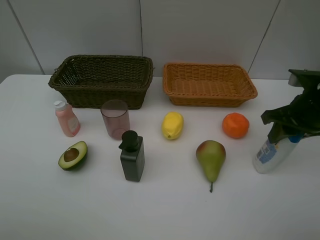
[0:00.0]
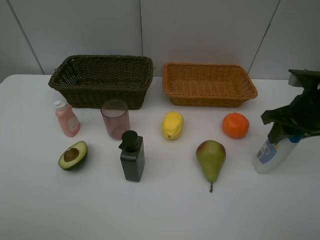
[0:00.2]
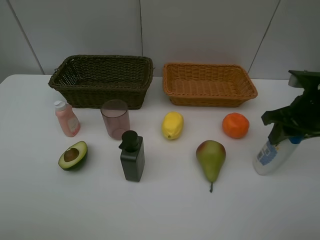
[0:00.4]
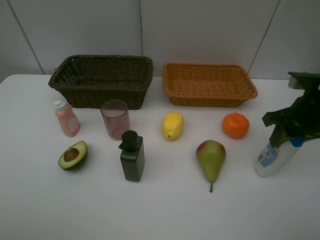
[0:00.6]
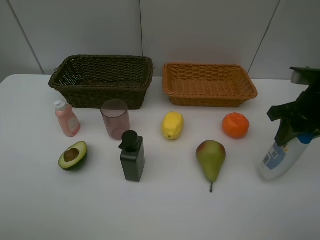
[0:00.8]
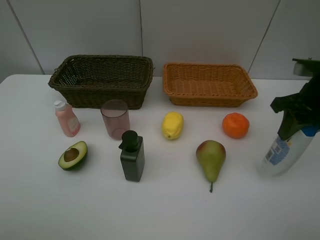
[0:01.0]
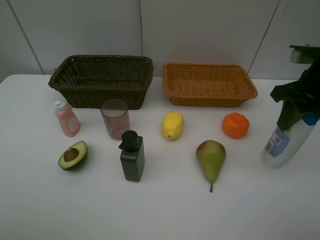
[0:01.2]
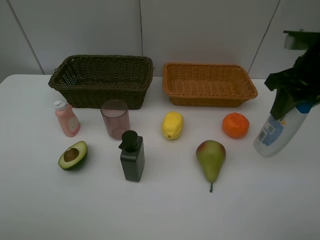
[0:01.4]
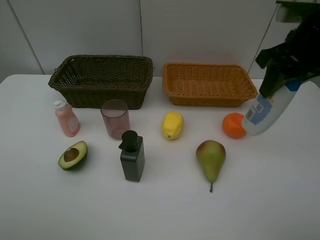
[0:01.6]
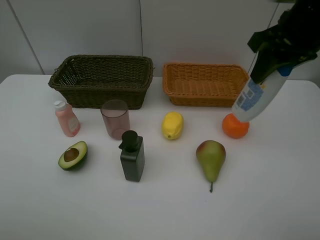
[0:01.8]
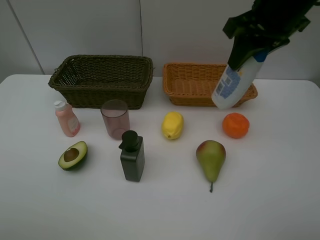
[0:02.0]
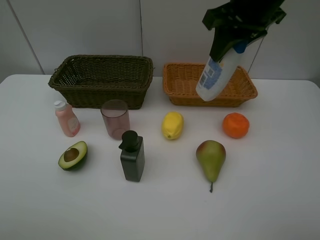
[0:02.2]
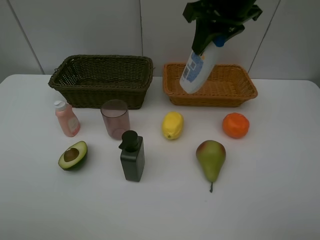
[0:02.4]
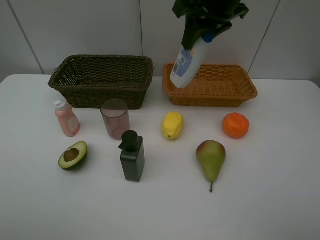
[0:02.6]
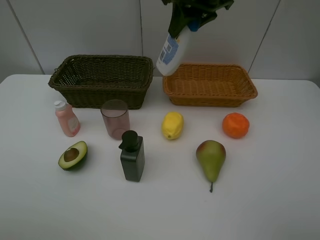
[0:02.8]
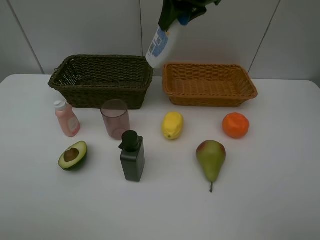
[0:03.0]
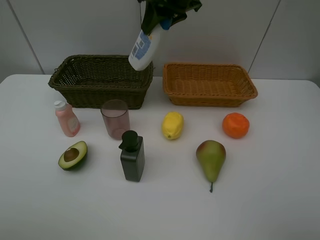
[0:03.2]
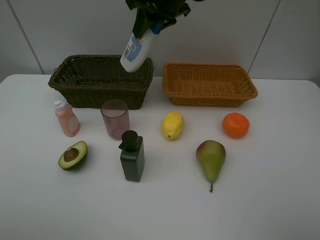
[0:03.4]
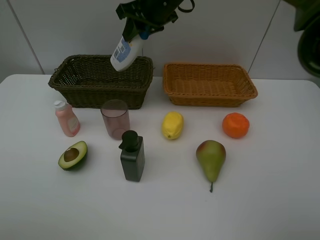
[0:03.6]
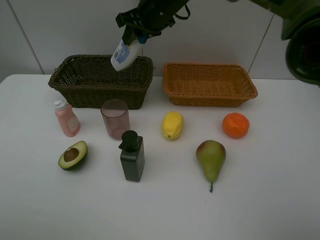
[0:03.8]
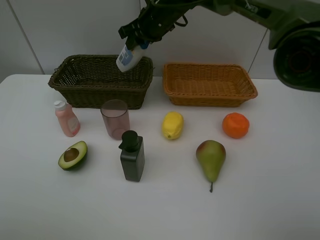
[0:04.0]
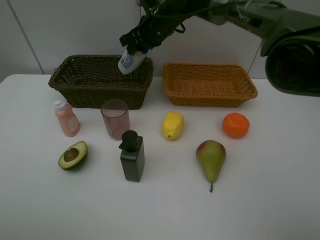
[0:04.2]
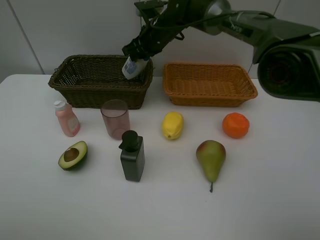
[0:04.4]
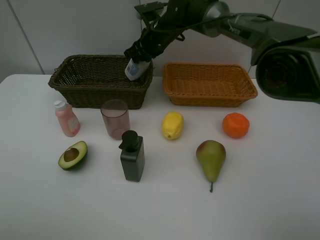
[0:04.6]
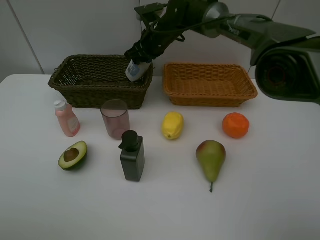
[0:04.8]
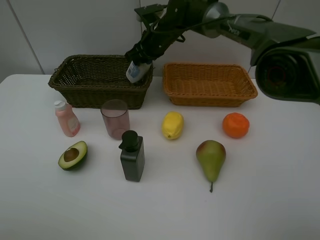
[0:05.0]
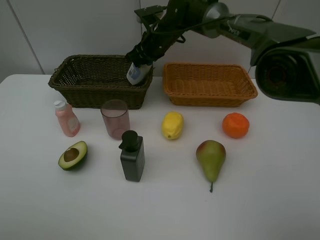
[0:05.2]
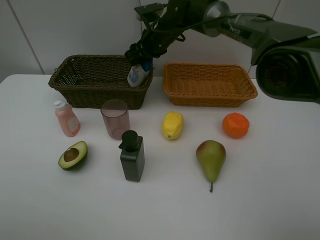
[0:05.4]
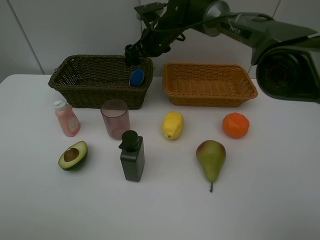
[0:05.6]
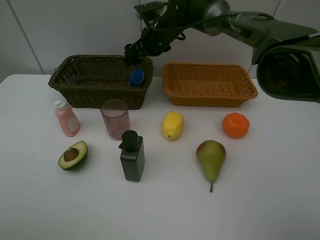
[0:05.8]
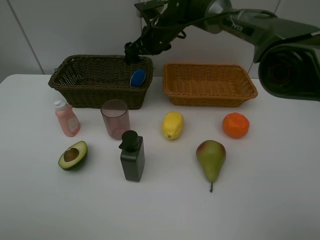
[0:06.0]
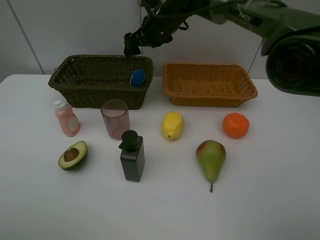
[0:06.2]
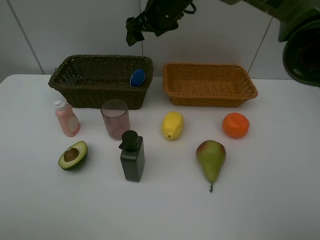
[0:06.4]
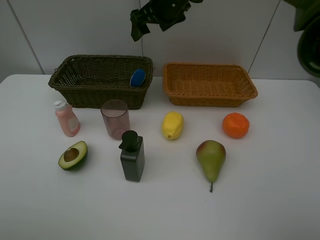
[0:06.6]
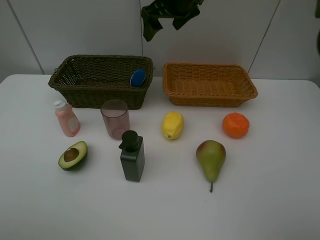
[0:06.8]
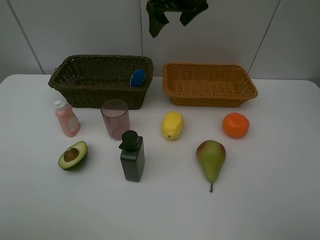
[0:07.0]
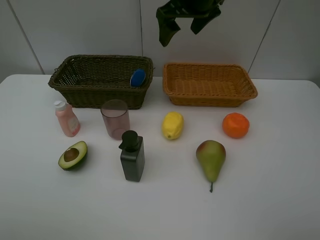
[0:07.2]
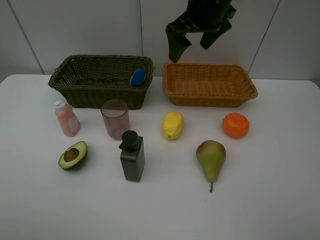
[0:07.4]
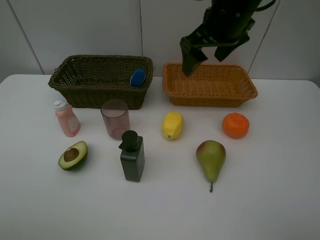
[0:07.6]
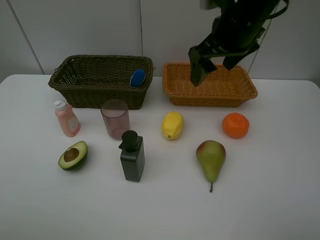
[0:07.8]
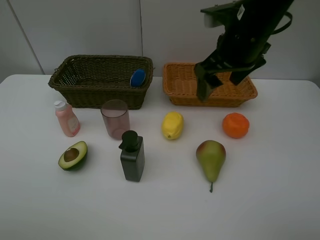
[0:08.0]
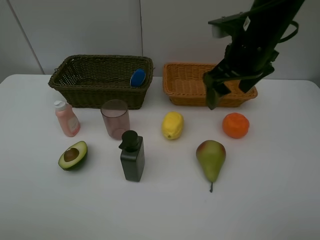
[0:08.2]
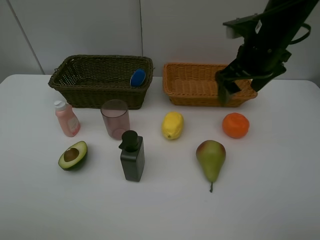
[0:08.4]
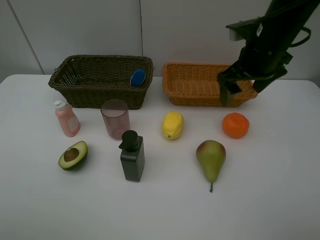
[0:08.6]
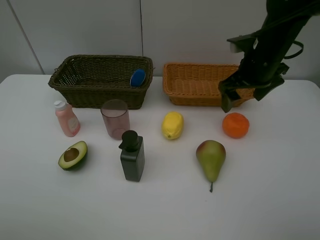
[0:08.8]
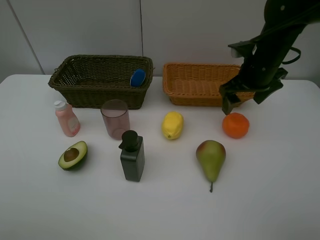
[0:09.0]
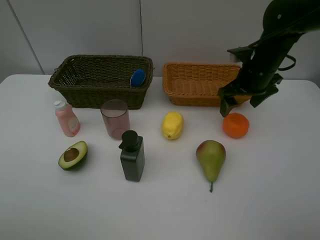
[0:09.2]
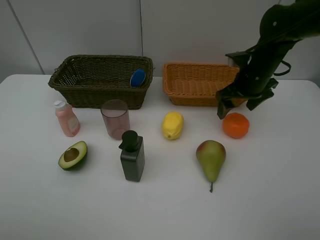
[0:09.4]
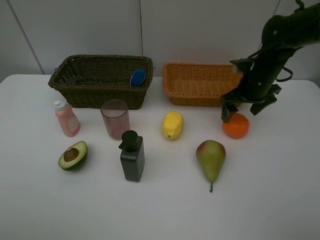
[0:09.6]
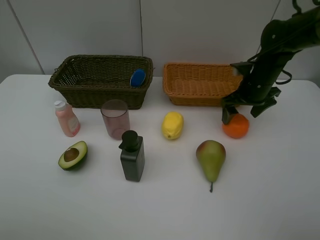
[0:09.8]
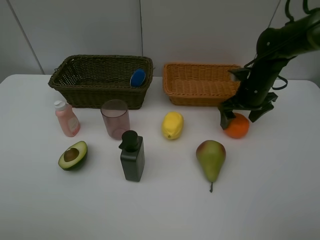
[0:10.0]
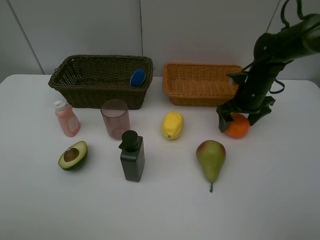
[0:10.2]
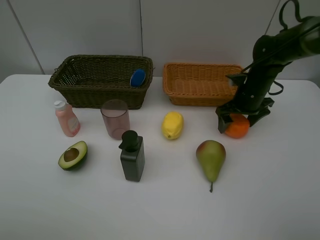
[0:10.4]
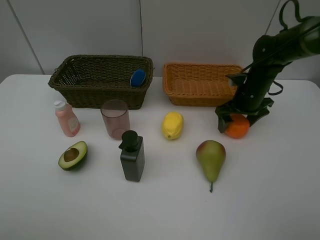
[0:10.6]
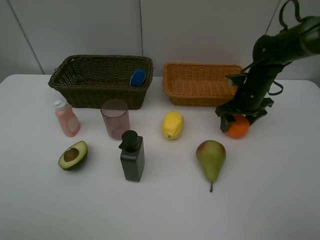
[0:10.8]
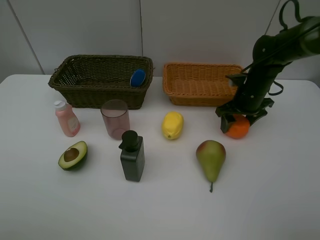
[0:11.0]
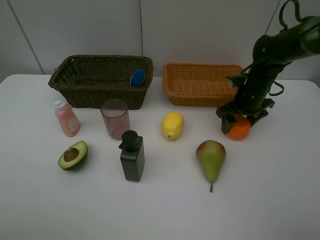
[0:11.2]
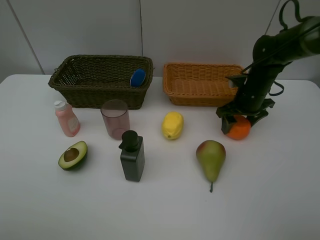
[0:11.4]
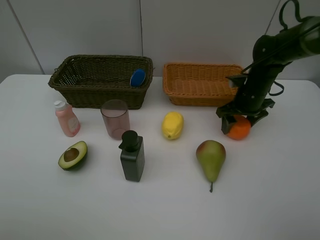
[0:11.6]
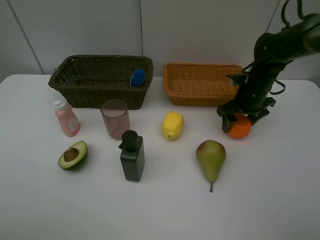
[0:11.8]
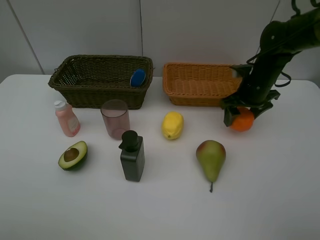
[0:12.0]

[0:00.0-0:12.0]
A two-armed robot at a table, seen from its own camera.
Task of the whole recording: Place multiple objects separately in different baskets.
Step, 0:01.0 to 0:05.8: Place the shampoo in the dark basket with right gripper.
Step, 0:06.0 to 0:11.8: Pick up the orange with right gripper.
0:00.0 to 0:01.6: The right gripper goes approximately 15 cm upward and to the left.
0:01.6 to 0:03.0: The right gripper is displaced to the left and forward by roughly 20 cm.
0:03.0 to 0:04.4: The right gripper goes some 20 cm downward, forward and to the left.
0:04.4 to 0:06.0: The right gripper opens its fingers.
0:06.0 to 0:07.6: The right gripper goes roughly 20 cm backward, to the right and upward.
0:07.6 to 0:09.0: The right gripper shifts about 15 cm downward and to the right.
0:09.0 to 0:10.4: The right gripper is displaced downward by approximately 10 cm.
0:10.4 to 0:12.0: There are only small adjustments of the grippers.

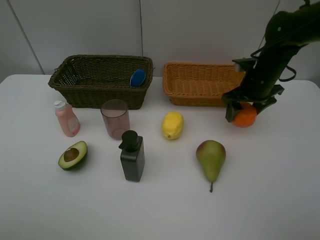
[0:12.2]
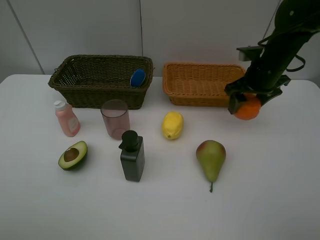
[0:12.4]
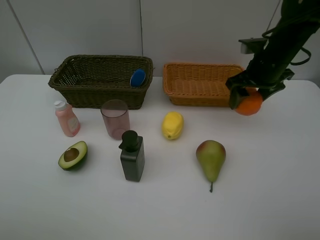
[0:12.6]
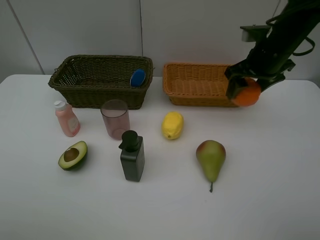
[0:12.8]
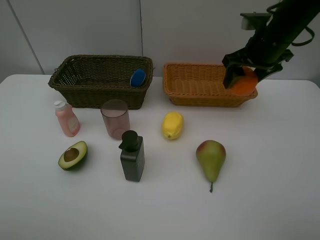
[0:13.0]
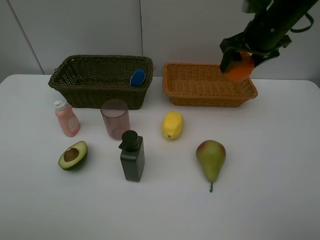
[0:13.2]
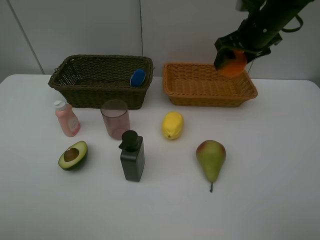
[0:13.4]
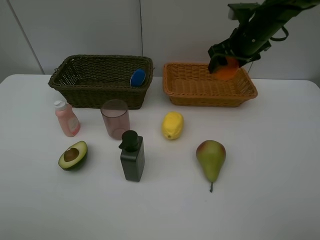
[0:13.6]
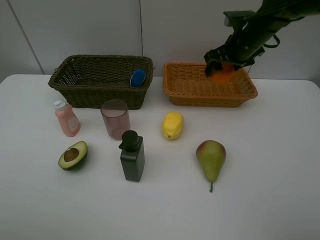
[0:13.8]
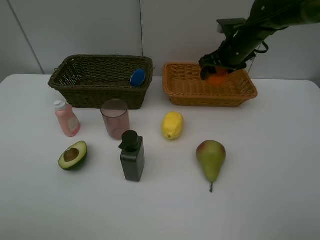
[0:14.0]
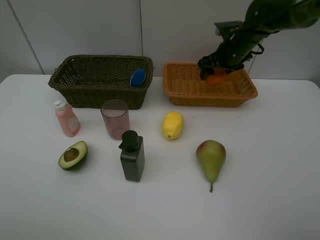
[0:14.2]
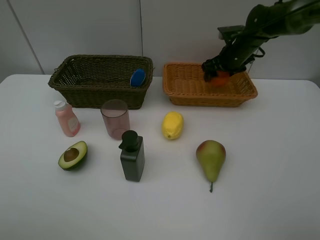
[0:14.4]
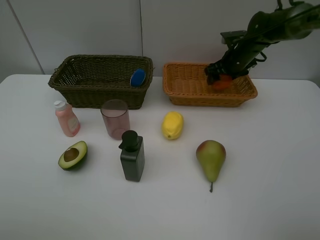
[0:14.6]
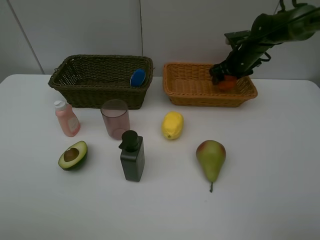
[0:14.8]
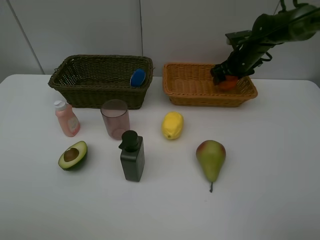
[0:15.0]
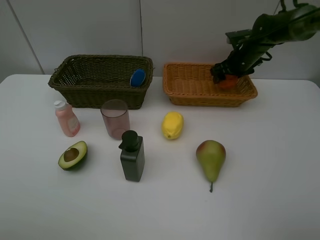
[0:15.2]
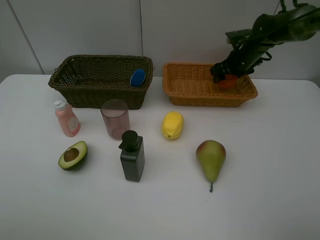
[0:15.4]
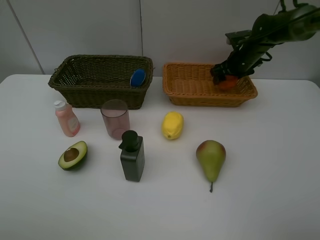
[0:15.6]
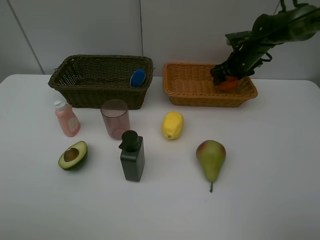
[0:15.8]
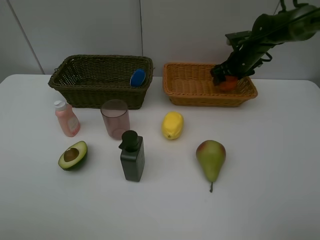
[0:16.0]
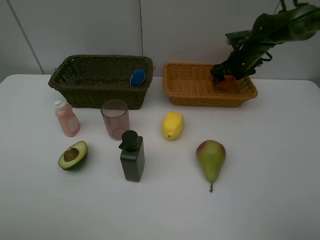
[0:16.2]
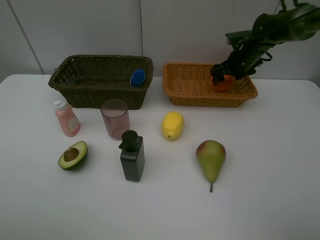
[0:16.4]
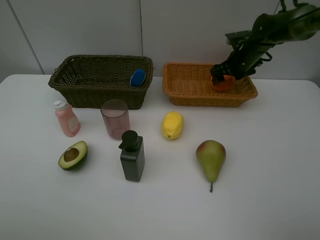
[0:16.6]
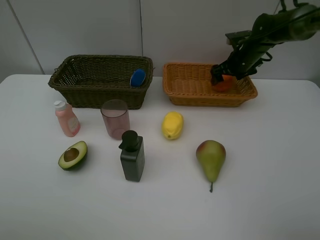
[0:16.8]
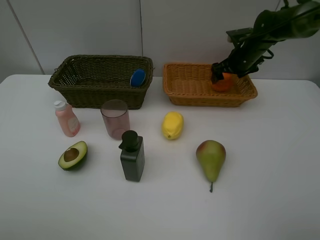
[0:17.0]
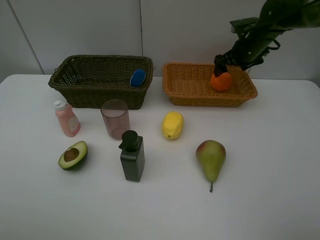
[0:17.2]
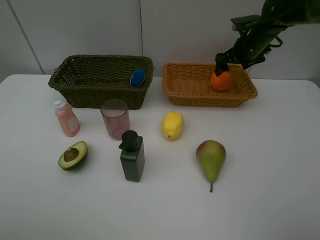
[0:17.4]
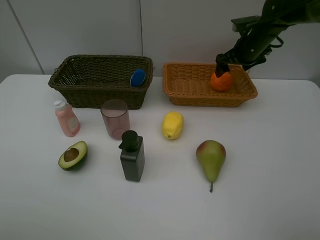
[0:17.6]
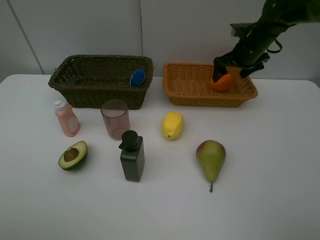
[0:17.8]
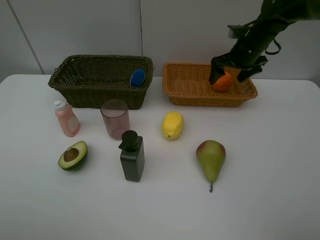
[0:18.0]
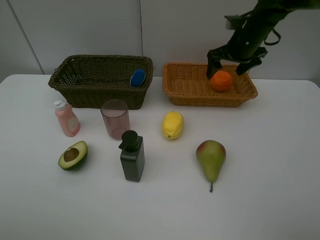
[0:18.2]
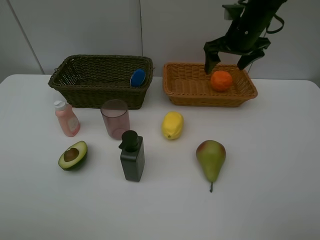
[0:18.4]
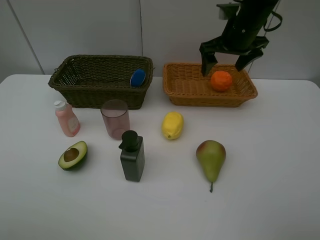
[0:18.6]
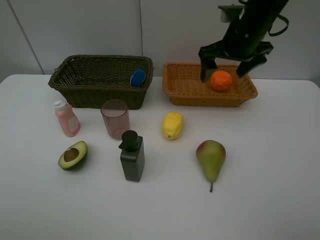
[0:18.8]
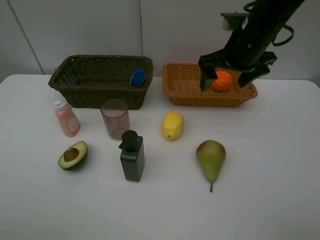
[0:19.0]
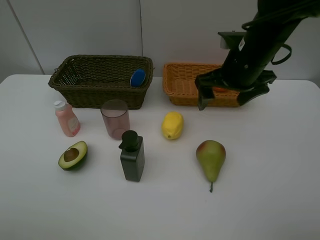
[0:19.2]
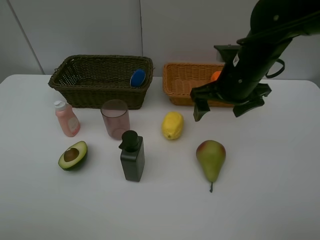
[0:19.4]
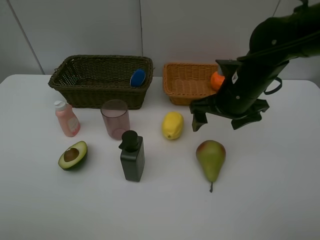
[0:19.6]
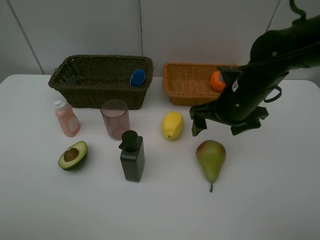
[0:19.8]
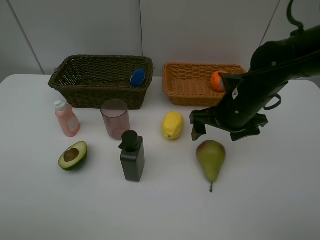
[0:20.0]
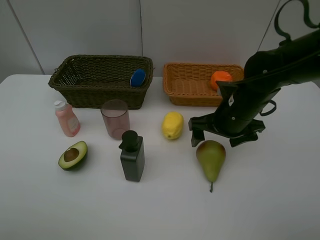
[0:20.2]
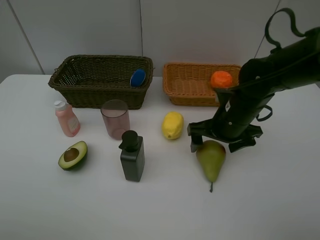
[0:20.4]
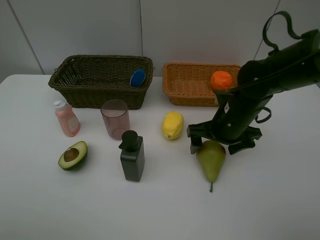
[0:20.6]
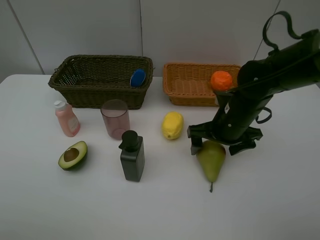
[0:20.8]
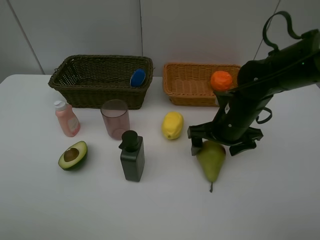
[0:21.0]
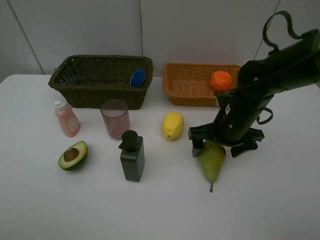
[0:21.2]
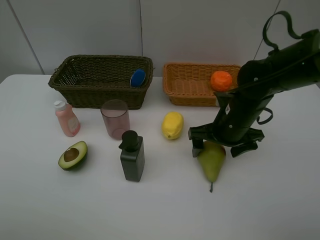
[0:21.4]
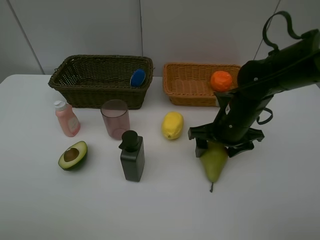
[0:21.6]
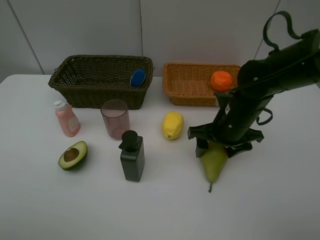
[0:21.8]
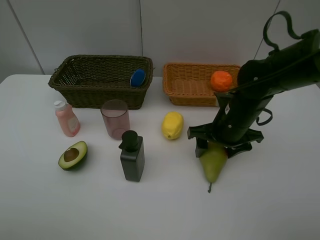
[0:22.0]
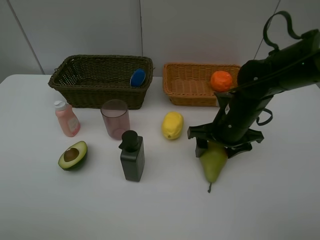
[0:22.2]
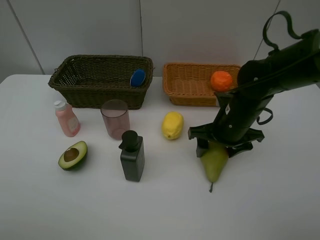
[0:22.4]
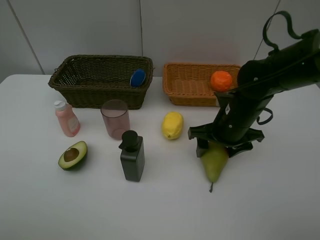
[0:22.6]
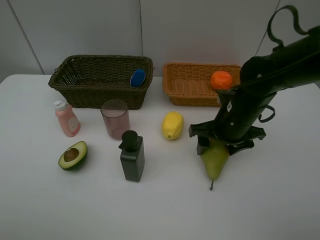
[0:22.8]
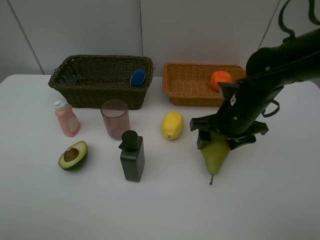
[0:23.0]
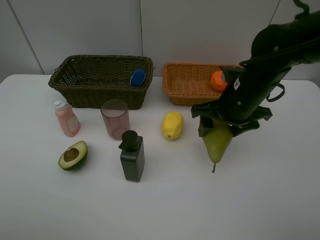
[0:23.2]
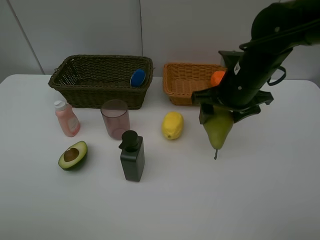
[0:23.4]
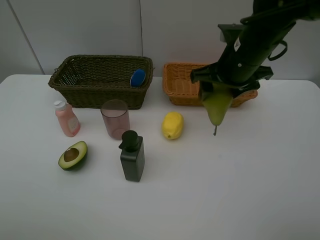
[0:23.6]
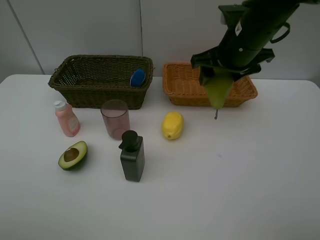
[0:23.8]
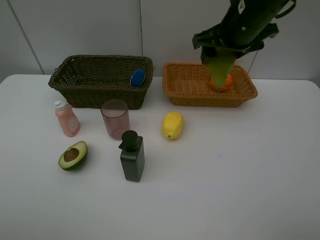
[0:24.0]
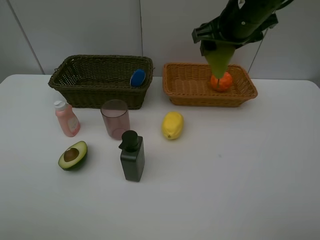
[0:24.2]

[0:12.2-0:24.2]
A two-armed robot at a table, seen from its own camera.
Task of the whole recording: Place multiple objects separately in different baskets.
Step, 0:12.2 to 0:17.2: Place the orange in the light basket with right gripper.
Step, 0:17.4 to 0:23.0: Pick up the pear with right gripper.
0:12.2 to 0:13.8: The right gripper heads forward, covering some 5 cm.
0:13.8 to 0:15.2: The right gripper is displaced forward and downward by roughly 10 cm.
0:15.2 to 0:16.6: The two grippers keep their place.
0:16.6 to 0:18.2: The right gripper moves upward, some 5 cm.
0:18.2 to 0:19.8: The right gripper shifts roughly 15 cm backward.
0:19.8 to 0:21.2: There are only small adjustments of the grippers.
0:22.6 to 0:24.2: The right gripper is displaced upward and forward by about 20 cm.
